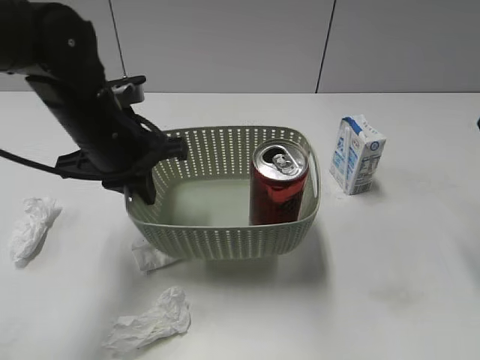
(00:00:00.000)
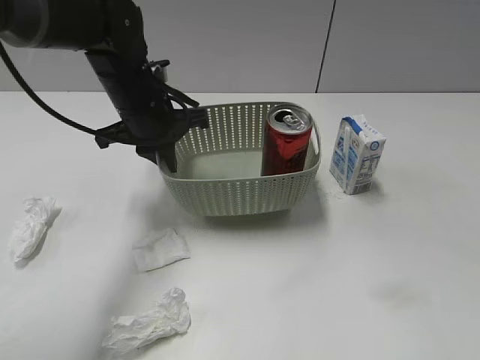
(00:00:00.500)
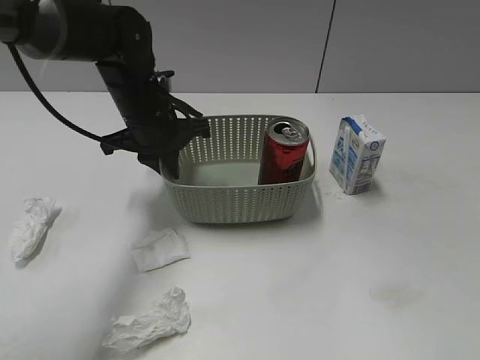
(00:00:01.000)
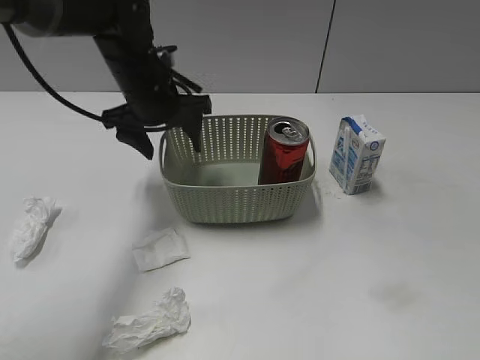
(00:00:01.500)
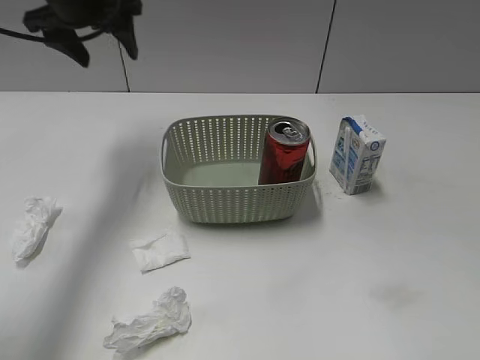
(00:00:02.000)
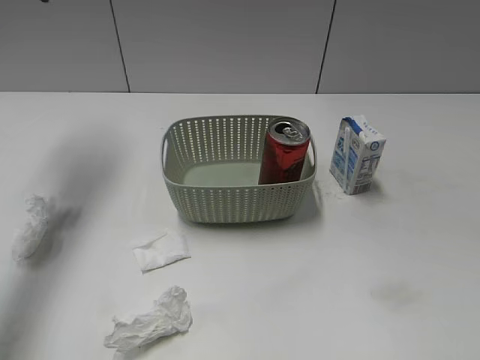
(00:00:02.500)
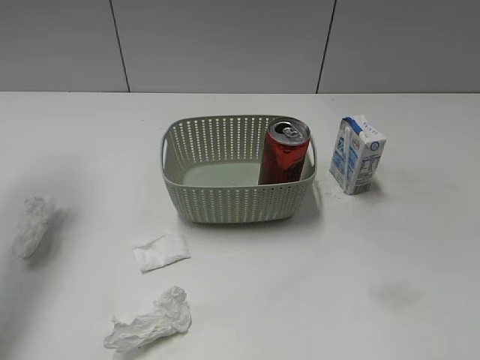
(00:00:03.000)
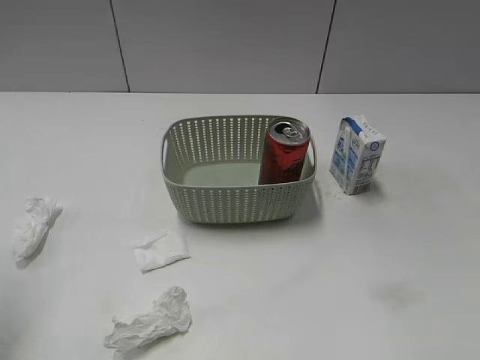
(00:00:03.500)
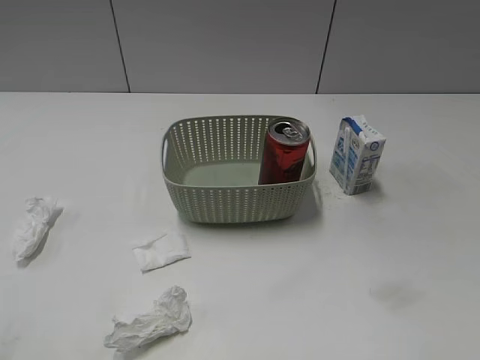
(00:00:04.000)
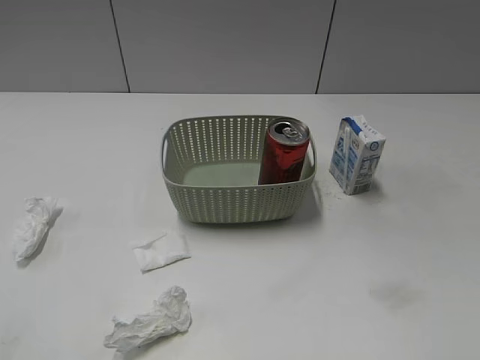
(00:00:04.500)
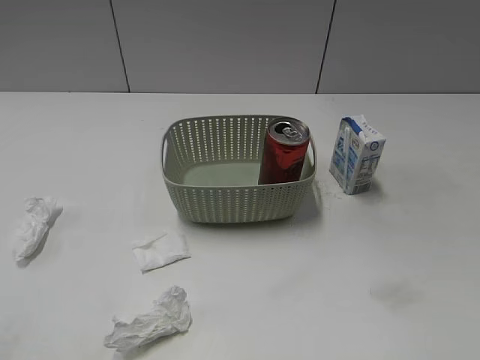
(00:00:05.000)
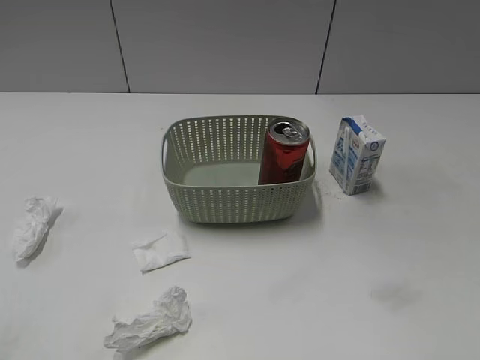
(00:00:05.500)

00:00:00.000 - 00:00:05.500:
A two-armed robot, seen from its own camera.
Step, 00:00:00.000 - 00:00:01.500: Place the basket on the table with left gripper.
00:00:00.000 - 00:00:02.000: The right gripper heads backward, covering roughly 25 cm; the left gripper heads forward, upward and to the left, covering about 20 cm, and opens its fingers.
00:00:02.000 - 00:00:03.500: The left gripper shifts some 30 cm backward and to the left.
